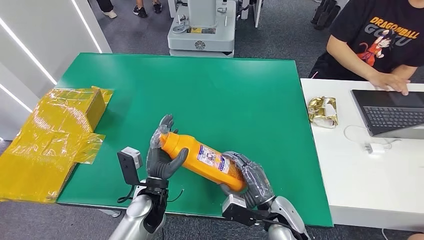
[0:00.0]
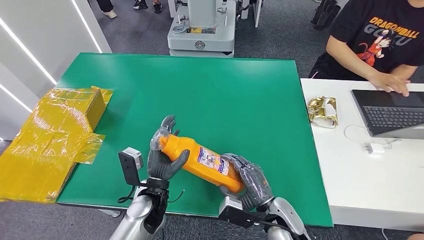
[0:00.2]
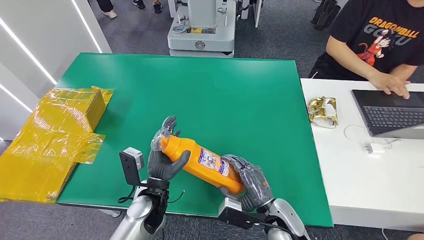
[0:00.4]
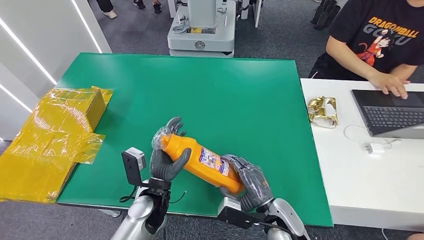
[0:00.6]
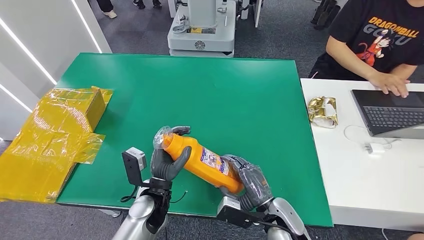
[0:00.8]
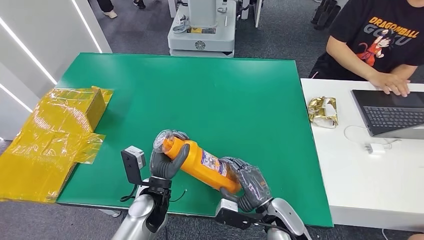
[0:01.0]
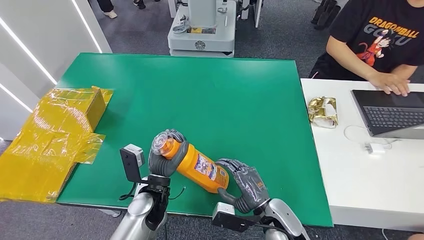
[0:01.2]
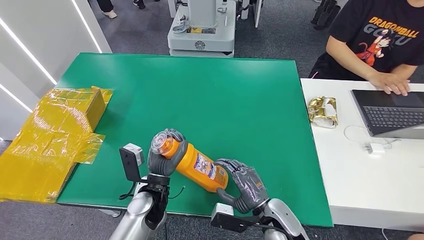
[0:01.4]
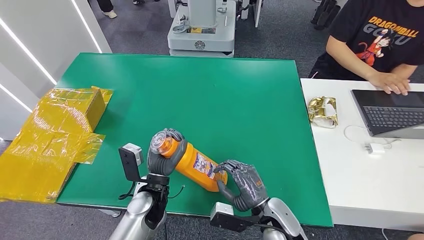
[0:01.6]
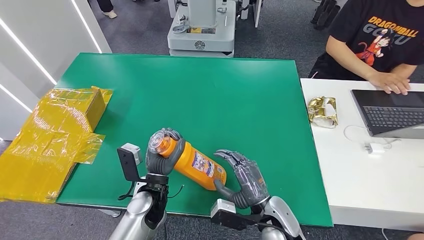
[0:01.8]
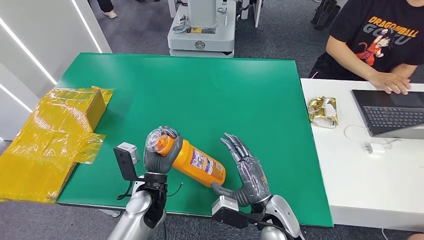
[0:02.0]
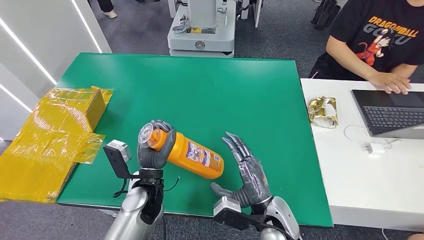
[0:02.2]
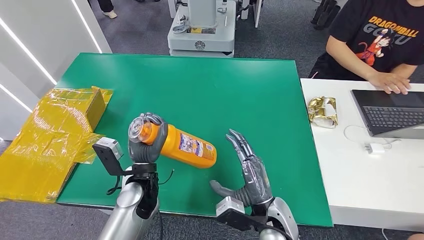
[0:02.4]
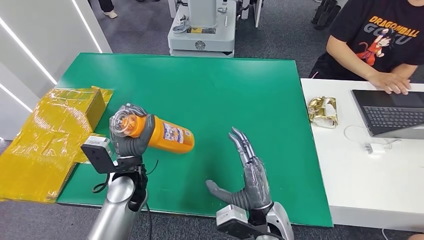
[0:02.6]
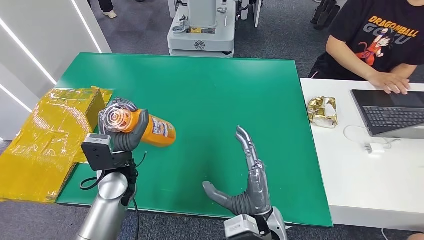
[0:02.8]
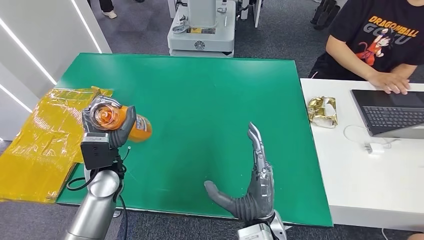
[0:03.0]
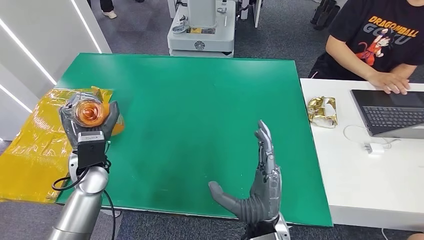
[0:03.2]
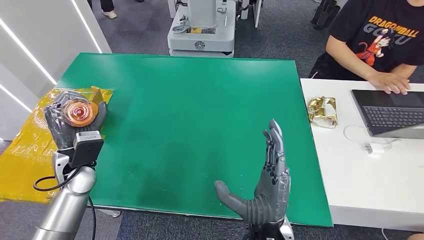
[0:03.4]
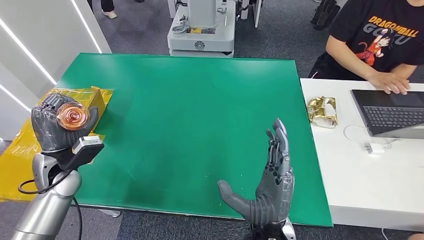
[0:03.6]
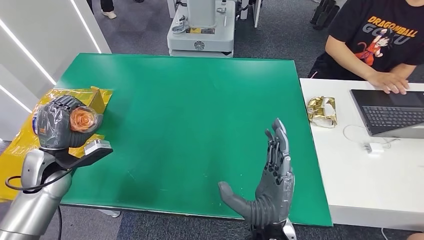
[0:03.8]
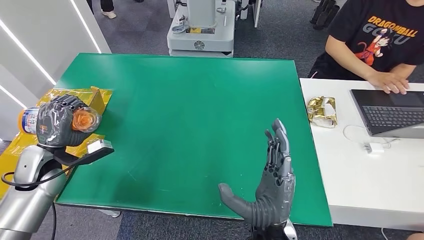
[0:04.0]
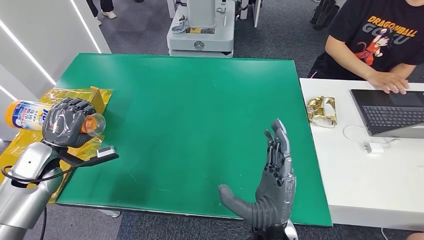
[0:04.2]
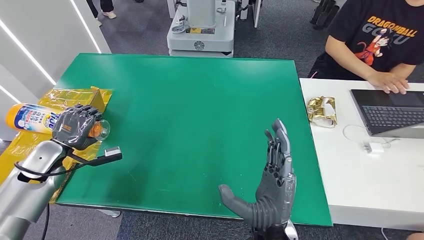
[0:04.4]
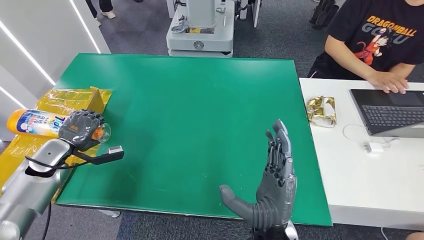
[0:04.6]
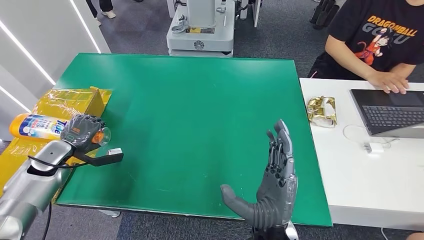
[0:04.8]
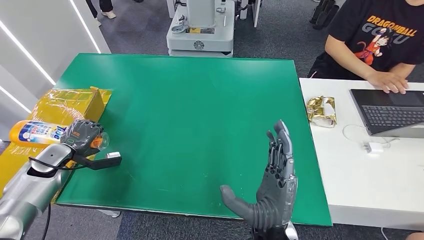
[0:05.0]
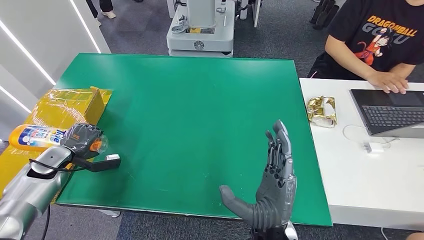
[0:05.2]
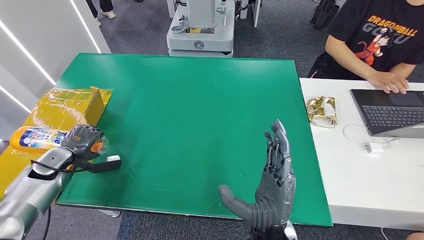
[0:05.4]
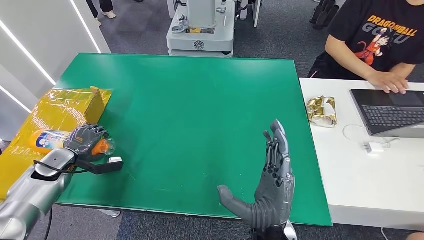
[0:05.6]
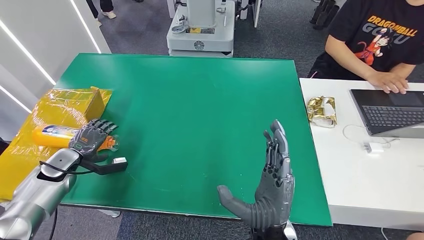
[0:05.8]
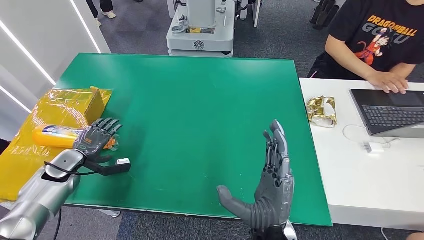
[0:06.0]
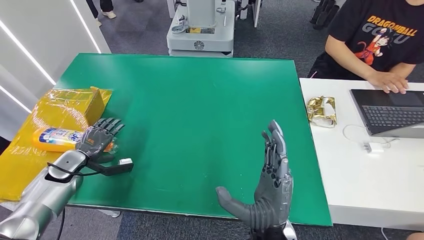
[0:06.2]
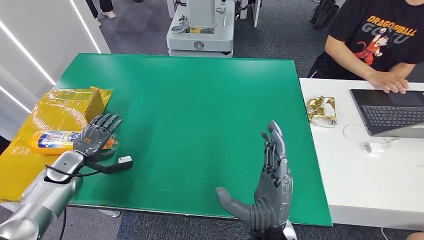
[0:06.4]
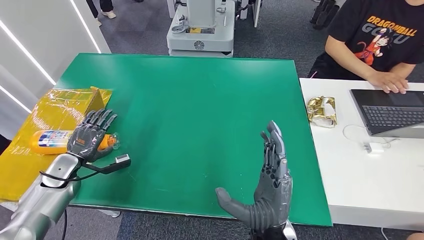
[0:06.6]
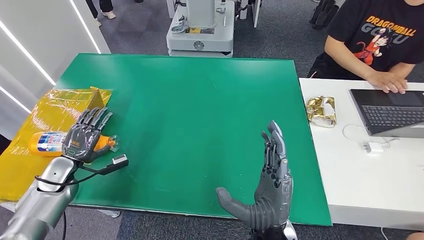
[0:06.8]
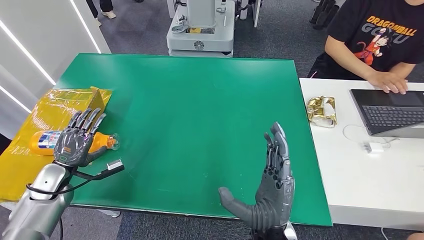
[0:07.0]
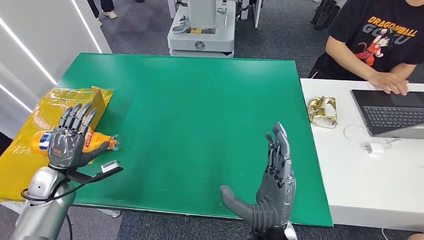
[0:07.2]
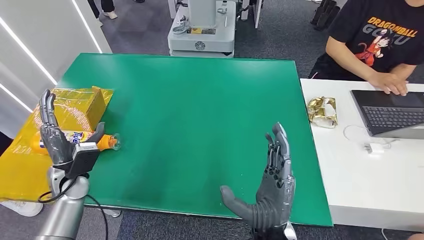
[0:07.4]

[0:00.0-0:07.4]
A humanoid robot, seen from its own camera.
Step, 0:00.0 to 0:07.2: Turn the bottle to the front side.
0:00.0 to 0:01.4: The hands move only a little.
0:01.4 to 0:03.0: Both hands move to the left and upward, roughly 10 cm.
0:03.0 to 0:04.4: The left hand shifts roughly 20 cm to the left.
0:04.4 to 0:06.0: The left hand shifts some 5 cm downward.
0:06.0 to 0:07.4: The left hand shifts approximately 10 cm to the right.
